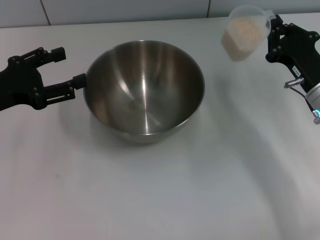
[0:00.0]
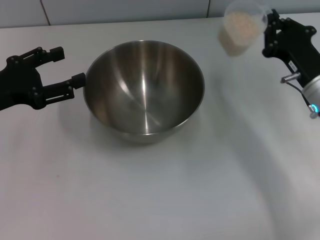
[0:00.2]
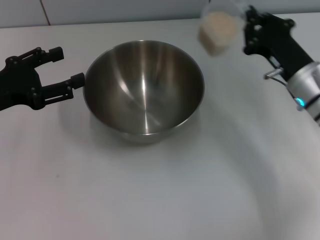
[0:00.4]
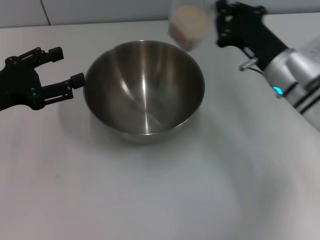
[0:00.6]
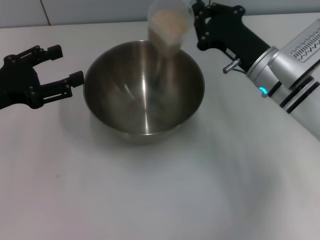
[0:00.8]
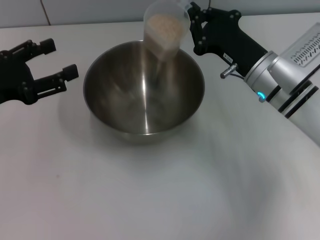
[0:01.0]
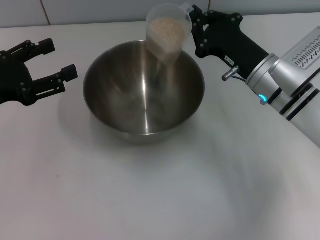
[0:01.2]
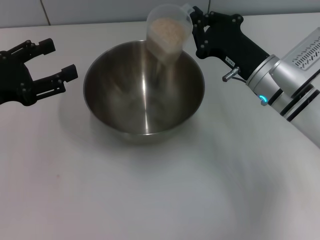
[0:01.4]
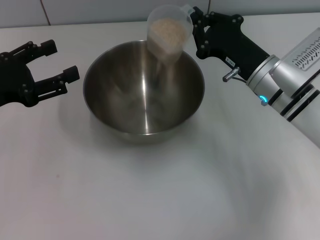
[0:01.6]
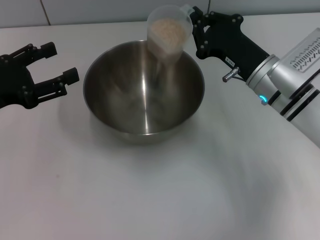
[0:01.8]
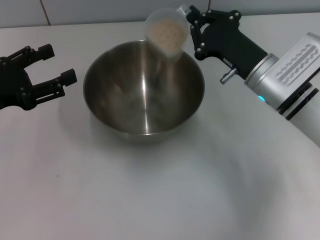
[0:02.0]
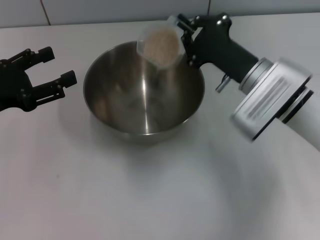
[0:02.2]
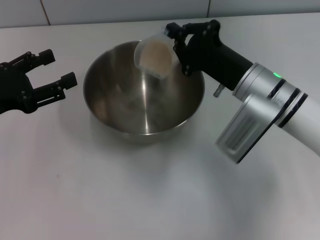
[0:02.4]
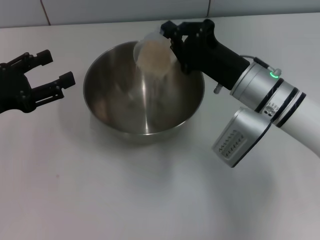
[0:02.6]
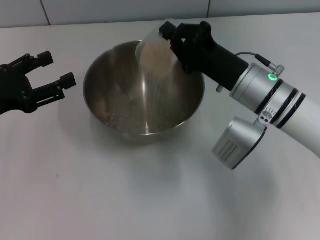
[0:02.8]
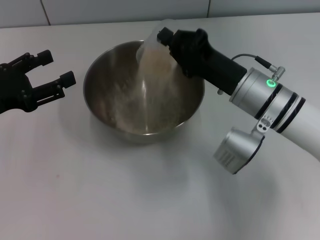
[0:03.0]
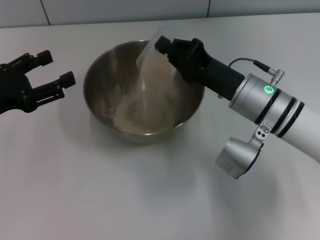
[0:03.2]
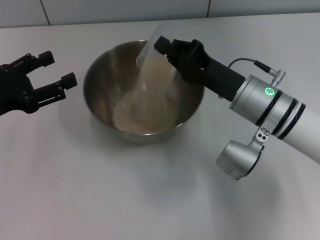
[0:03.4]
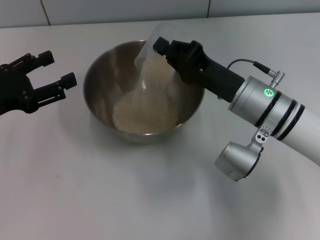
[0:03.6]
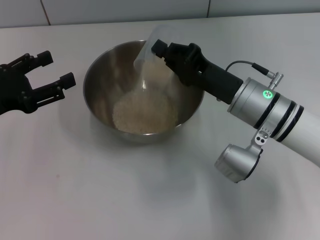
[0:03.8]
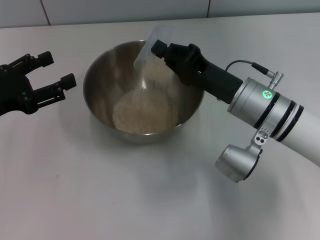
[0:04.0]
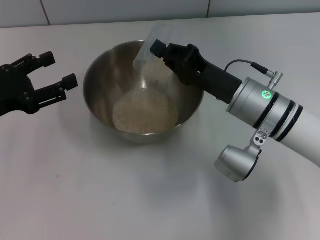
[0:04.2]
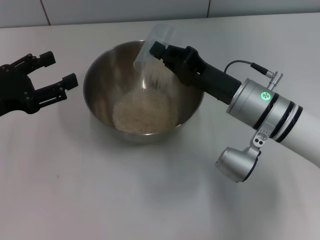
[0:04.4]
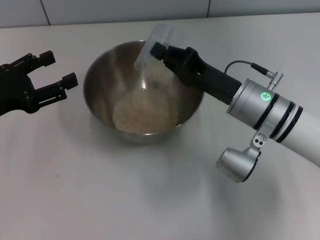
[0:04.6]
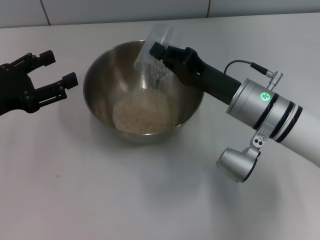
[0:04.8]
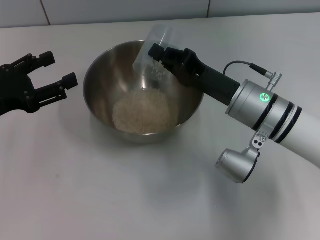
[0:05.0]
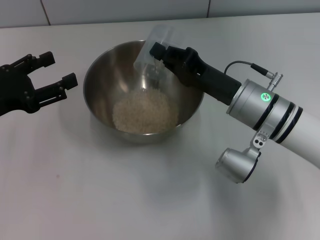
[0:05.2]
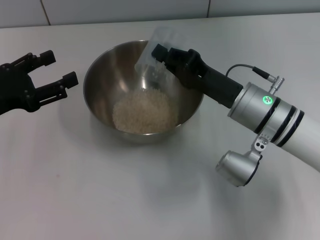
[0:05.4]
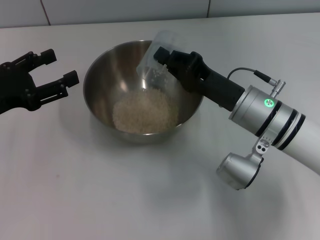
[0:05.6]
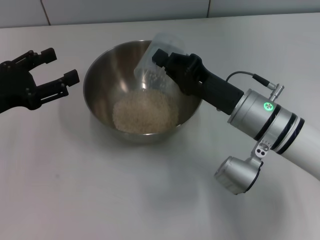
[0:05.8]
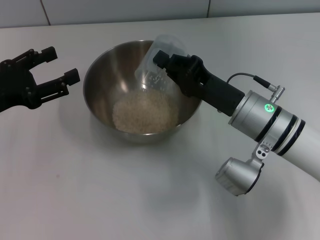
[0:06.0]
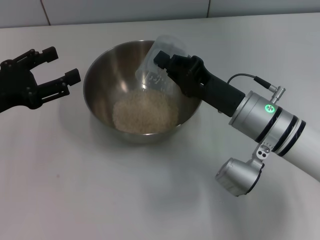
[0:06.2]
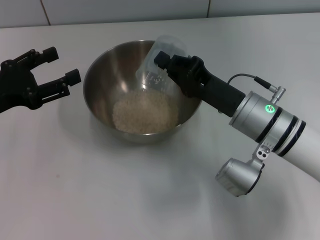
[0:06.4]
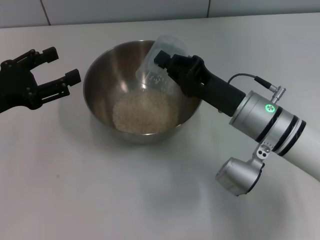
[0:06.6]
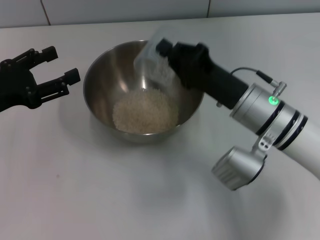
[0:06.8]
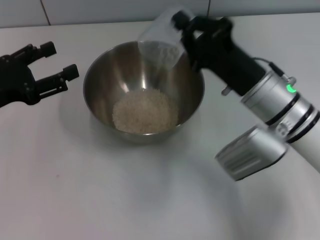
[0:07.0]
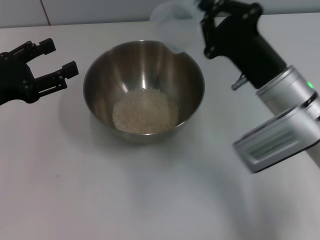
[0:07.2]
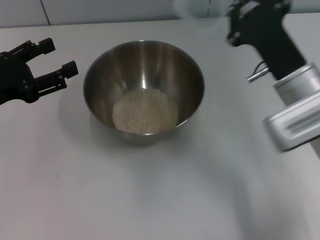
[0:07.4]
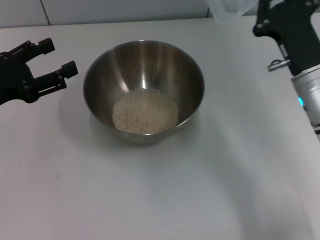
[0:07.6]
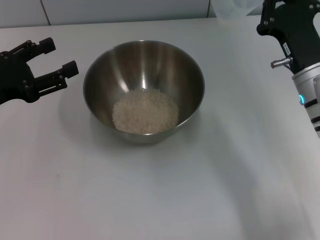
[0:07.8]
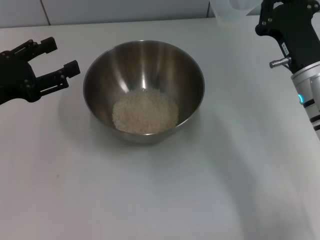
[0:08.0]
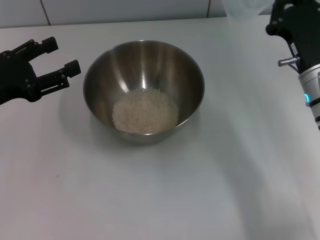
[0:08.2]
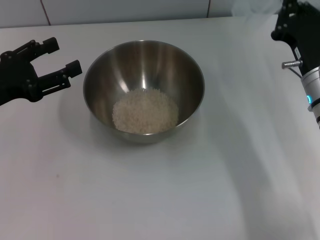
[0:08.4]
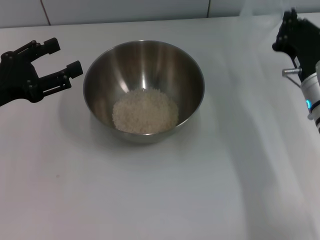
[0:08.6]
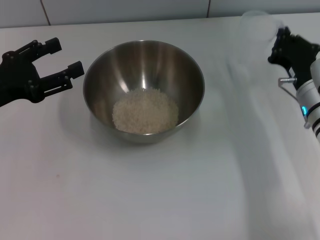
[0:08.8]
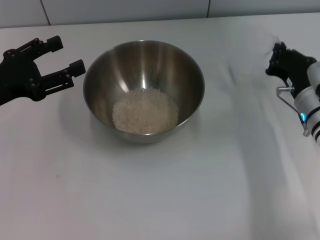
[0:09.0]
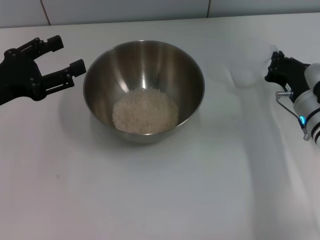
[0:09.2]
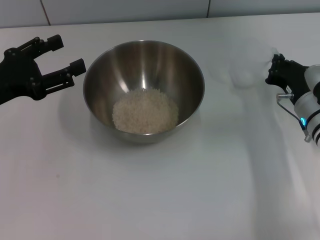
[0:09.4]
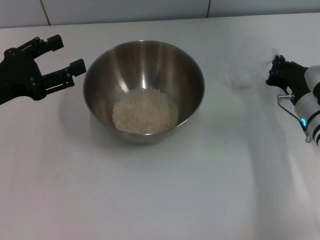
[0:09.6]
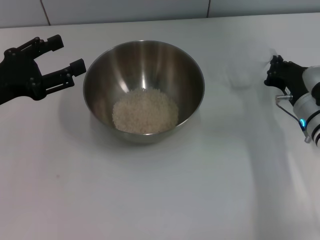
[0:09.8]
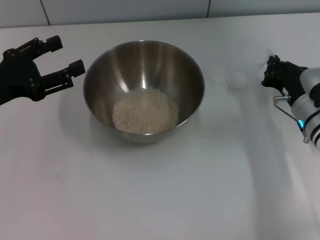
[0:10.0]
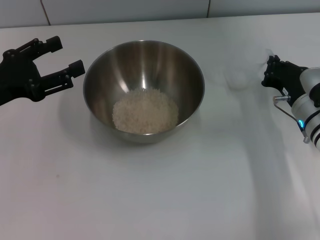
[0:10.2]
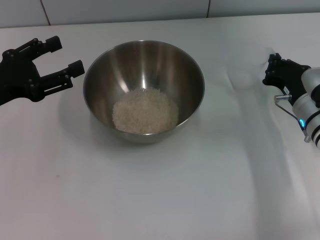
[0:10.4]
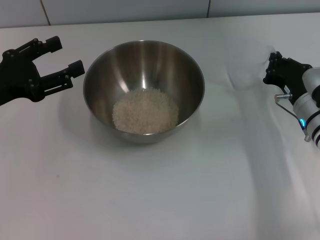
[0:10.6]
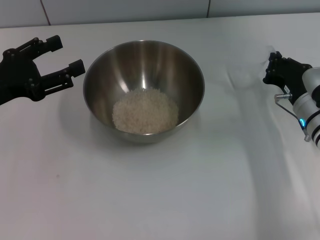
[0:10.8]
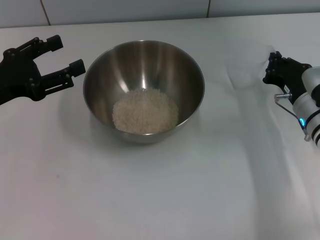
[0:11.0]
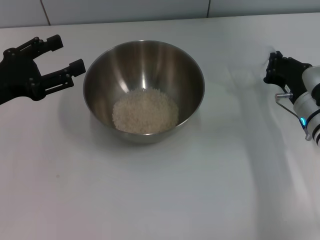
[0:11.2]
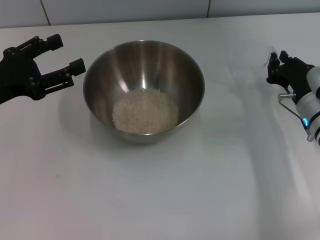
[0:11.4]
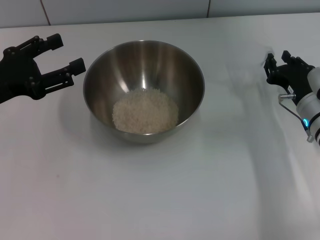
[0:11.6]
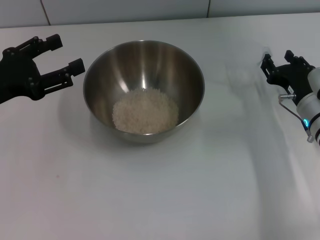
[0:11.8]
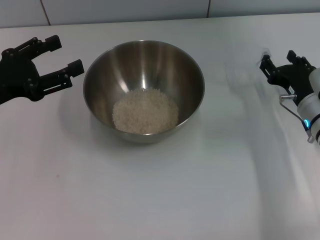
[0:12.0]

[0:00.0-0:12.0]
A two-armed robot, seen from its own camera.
Task of the whole recording: Place the bowl in the middle of the table with one hand and pour the rice from the grain cup into it with the other hand.
Step, 0:00.0 to 0:07.4: Pour the rice from the cup into the bowl with the right gripper.
0:00.0 to 0:01.6: The right gripper heads to the left, covering some 10 cm.
0:03.0 to 0:06.0: The grippers stay close to where they were, moving slightly.
0:06.0 to 0:07.6: The right gripper heads to the right, covering roughly 5 cm.
0:07.6 to 0:09.0: The right gripper shifts about 5 cm downward.
0:09.0 to 0:10.4: Neither gripper changes place.
0:10.4 to 0:12.0: The right gripper opens up.

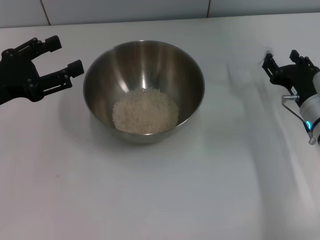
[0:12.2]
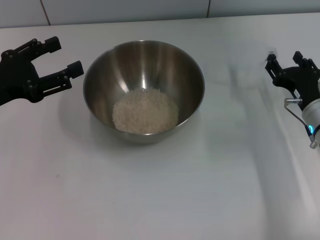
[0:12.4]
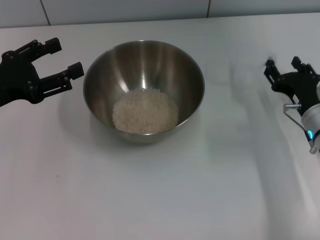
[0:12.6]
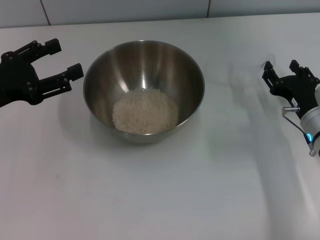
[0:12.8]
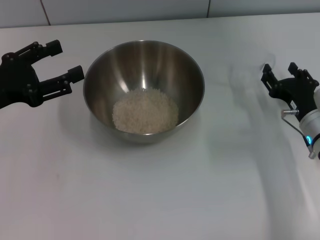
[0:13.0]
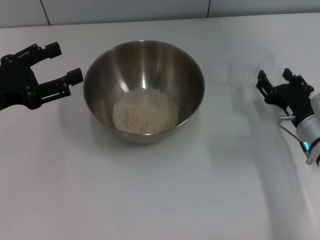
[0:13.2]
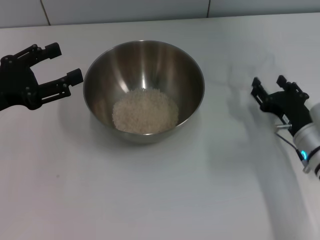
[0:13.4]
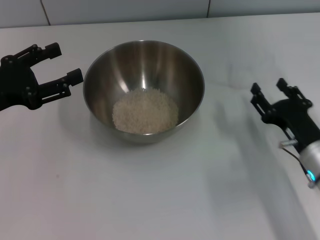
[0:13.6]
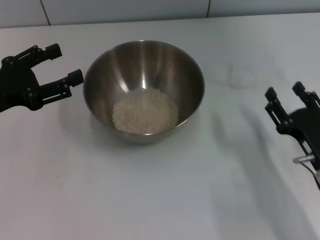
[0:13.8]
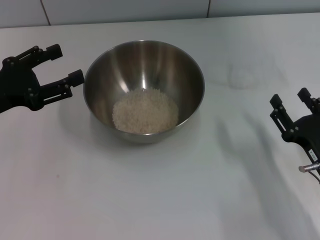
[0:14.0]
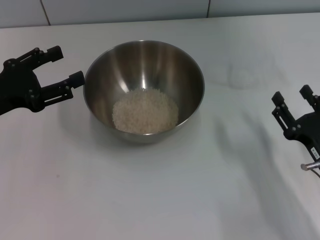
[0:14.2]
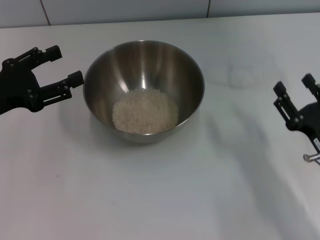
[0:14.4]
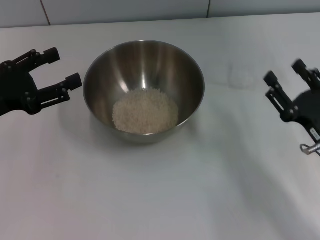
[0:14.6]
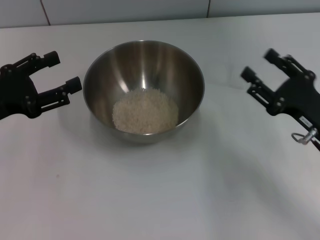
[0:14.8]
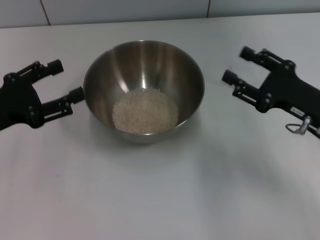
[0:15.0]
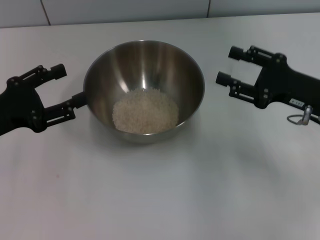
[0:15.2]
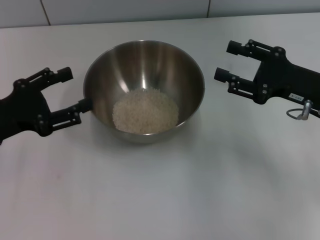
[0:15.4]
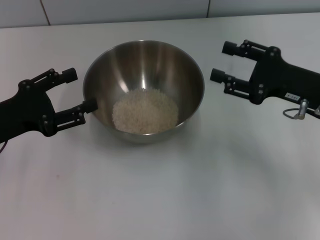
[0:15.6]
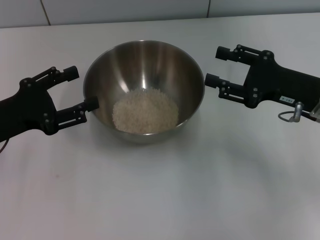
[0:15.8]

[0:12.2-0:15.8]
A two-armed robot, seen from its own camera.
Task of the whole recording: Place the bowl in the middle of the table with one hand and pour the rice from the grain cup into it with the other hand.
0:12.2 to 0:14.0: The right gripper moves backward, roughly 10 cm.
0:14.0 to 0:15.8: The right gripper is displaced forward and upward by roughly 15 cm.

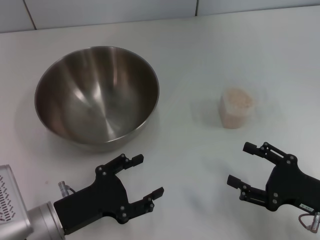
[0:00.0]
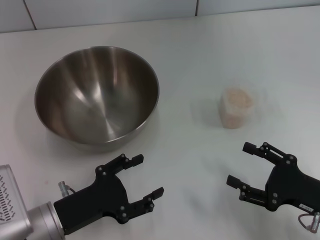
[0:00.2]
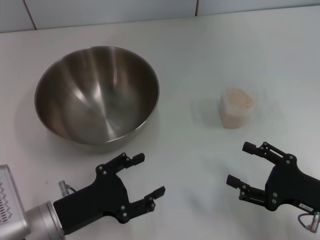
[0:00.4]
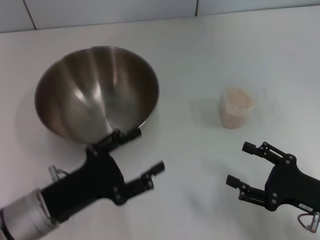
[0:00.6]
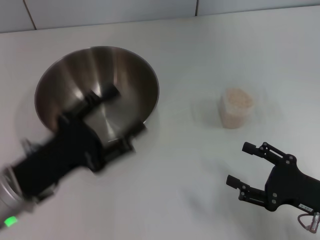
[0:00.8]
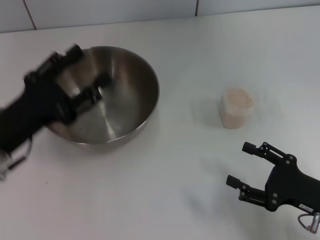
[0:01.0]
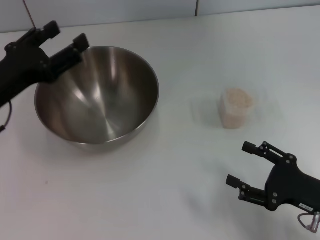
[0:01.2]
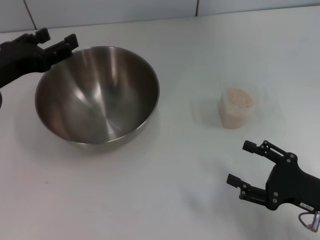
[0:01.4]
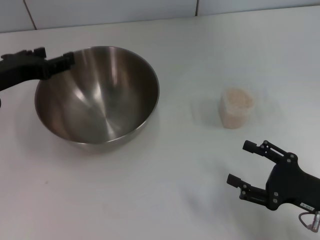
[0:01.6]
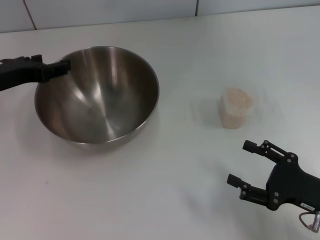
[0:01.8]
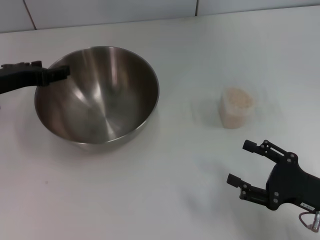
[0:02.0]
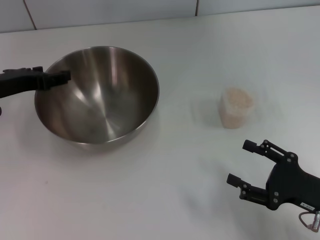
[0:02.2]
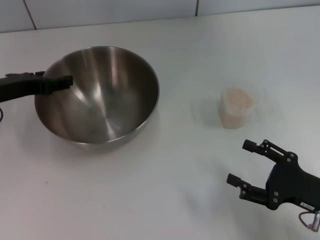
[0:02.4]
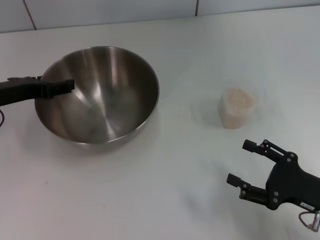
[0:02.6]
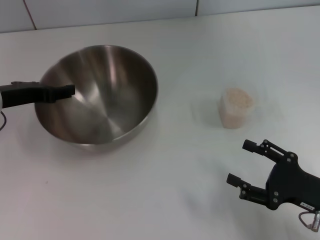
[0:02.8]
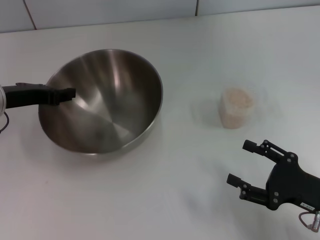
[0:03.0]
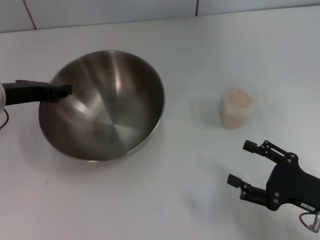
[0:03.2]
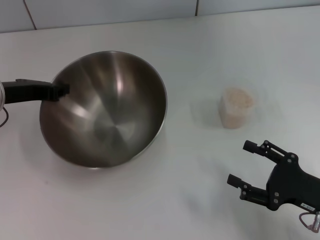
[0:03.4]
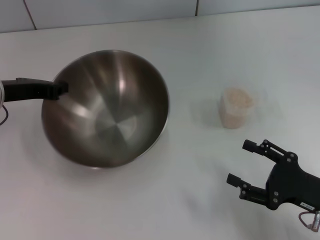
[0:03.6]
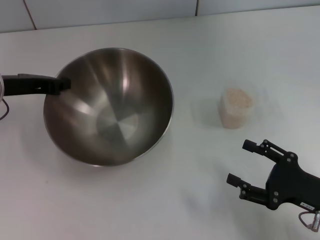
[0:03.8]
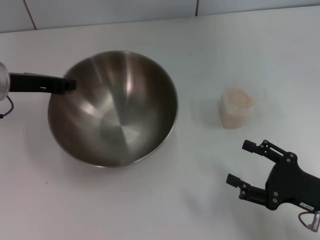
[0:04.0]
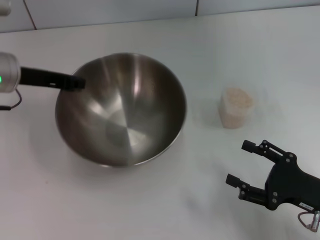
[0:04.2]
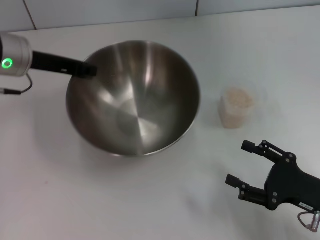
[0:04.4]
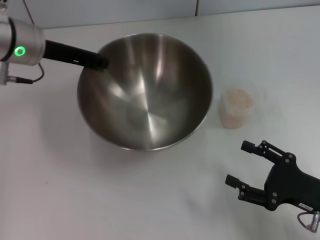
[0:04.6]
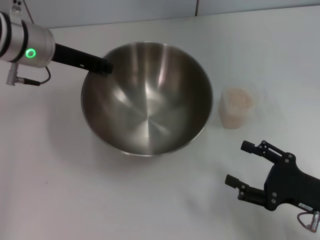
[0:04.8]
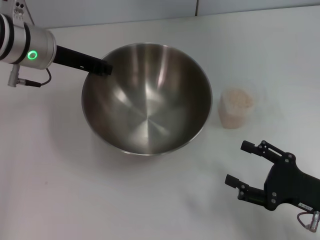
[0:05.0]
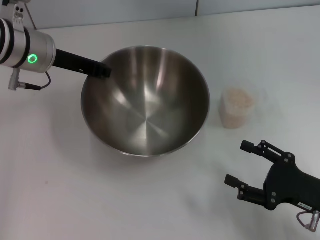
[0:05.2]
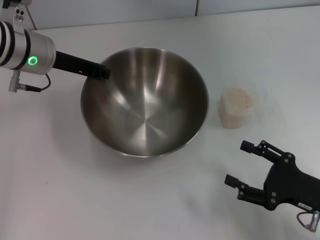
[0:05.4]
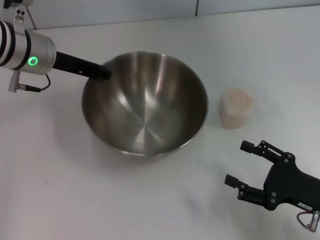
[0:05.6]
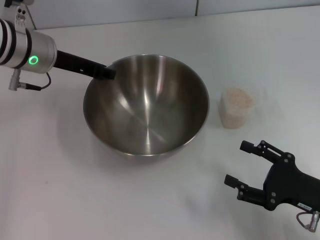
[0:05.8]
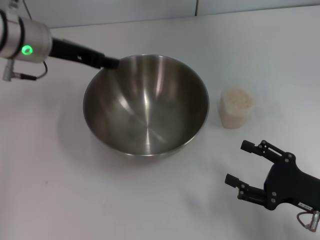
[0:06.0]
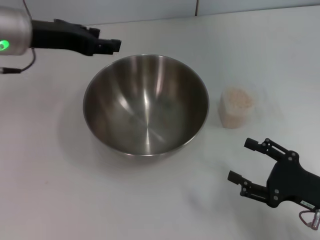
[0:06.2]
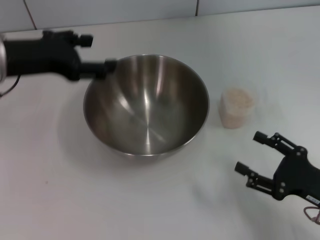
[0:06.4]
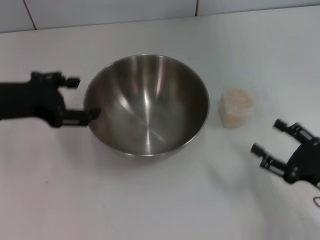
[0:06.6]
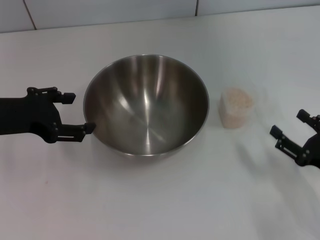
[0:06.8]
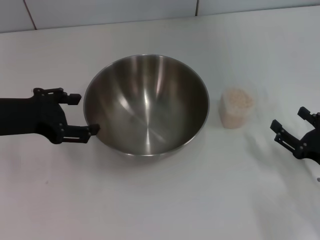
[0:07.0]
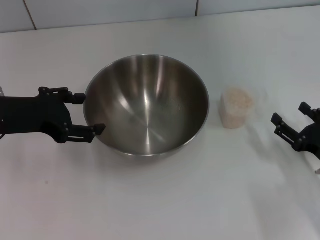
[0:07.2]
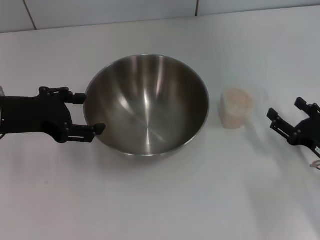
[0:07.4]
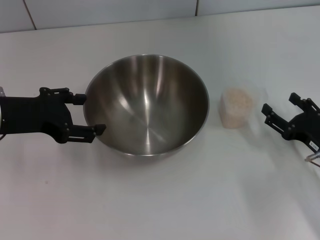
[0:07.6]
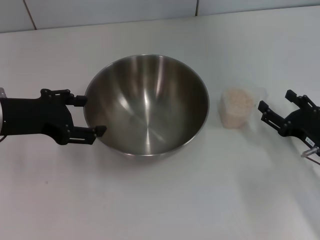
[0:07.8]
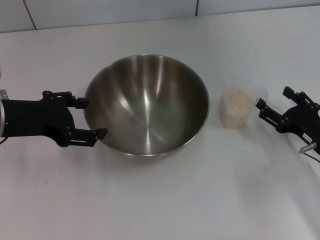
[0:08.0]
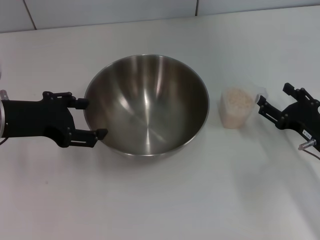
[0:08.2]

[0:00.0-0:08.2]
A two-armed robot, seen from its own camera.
Task of the whole recording: Place the bowl in the middle of the table with one hand and pour the rice from the grain cup into it with the other hand.
Step, 0:00.0 to 0:04.2: Pick up the bowl with the left gripper.
Step, 0:04.4 to 0:06.2: Place the bowl in the center of view with the left gripper.
0:00.0 to 0:01.6: The left gripper travels upward and forward by about 20 cm.
0:01.6 to 0:03.2: The left gripper closes its fingers.
0:03.2 to 0:05.0: The left gripper moves to the right and forward, roughly 10 cm, and closes up.
0:05.0 to 0:06.6: The left gripper shifts roughly 10 cm backward and to the left, and opens its fingers.
0:06.6 to 0:08.2: The right gripper is displaced forward by roughly 10 cm.
